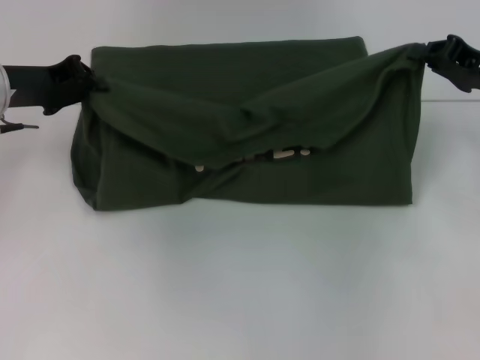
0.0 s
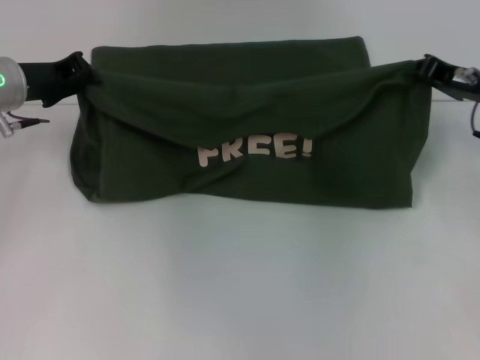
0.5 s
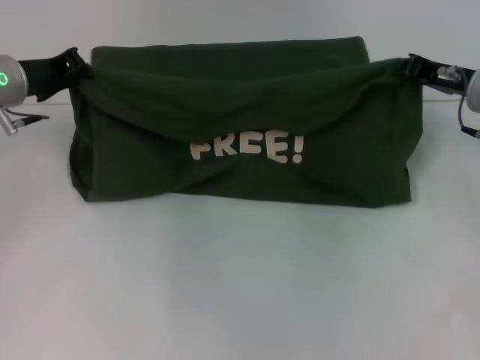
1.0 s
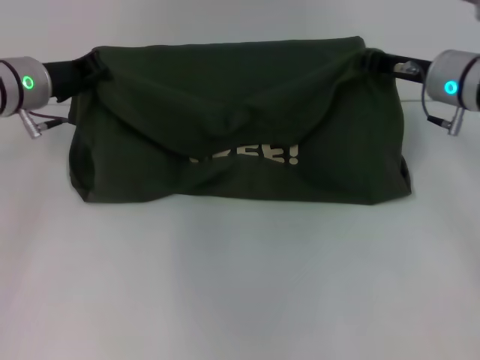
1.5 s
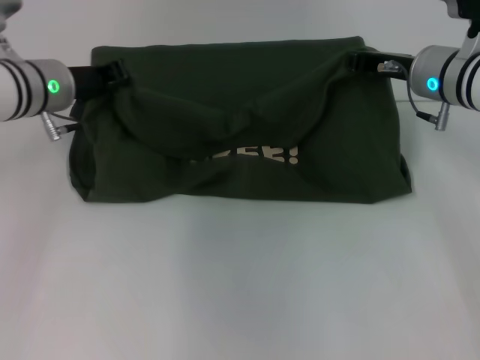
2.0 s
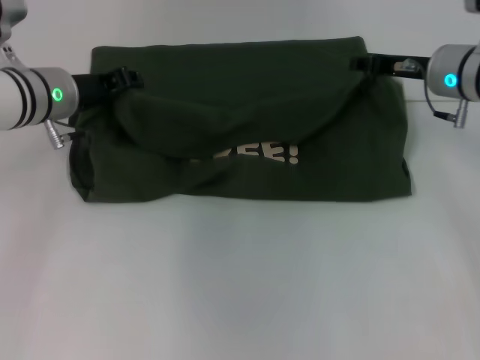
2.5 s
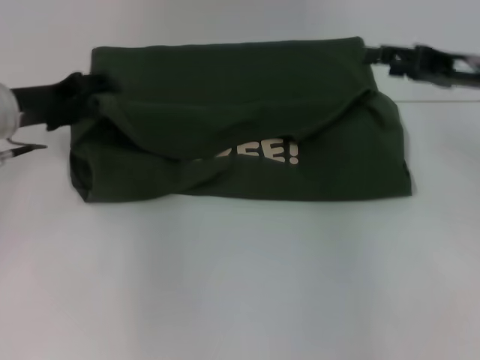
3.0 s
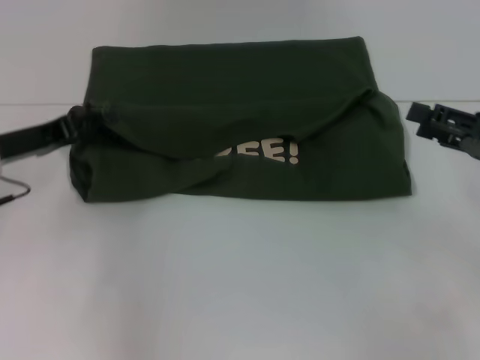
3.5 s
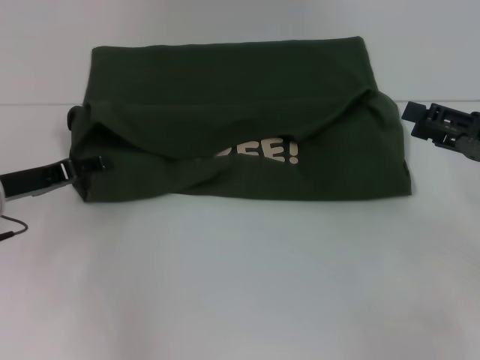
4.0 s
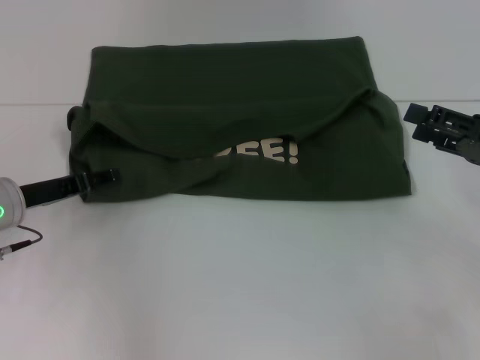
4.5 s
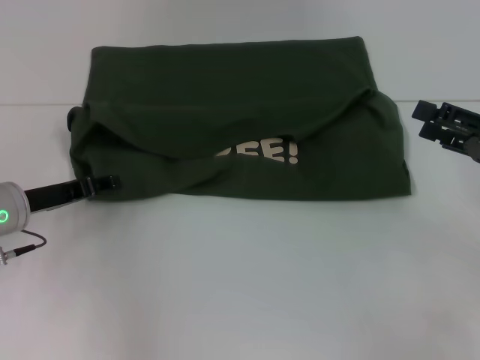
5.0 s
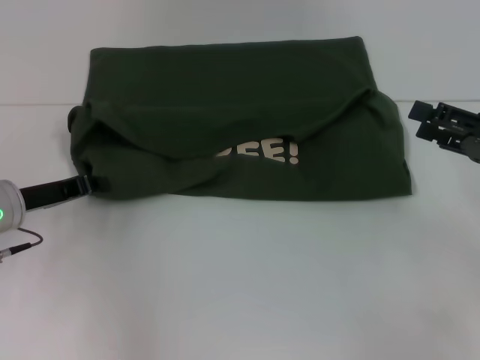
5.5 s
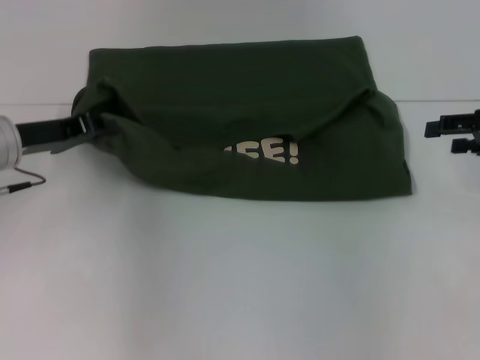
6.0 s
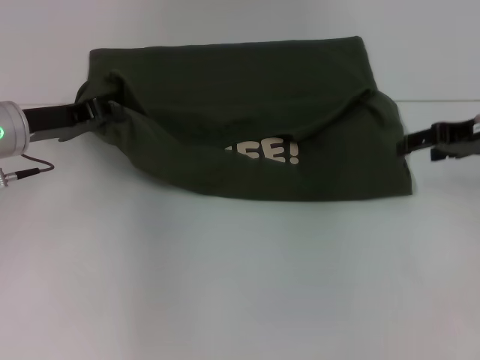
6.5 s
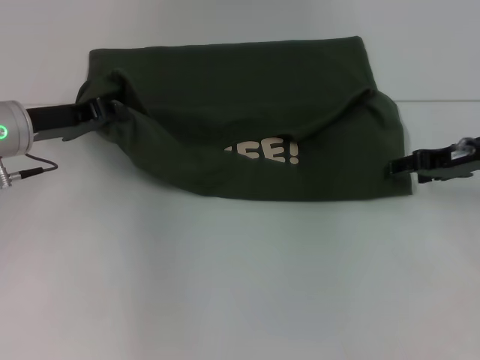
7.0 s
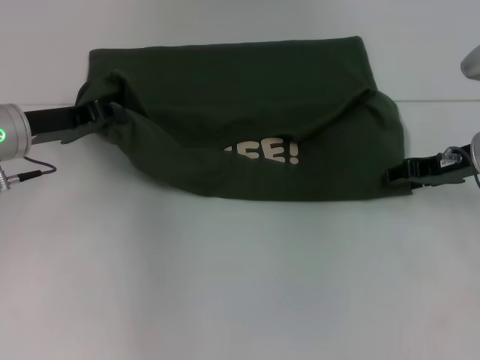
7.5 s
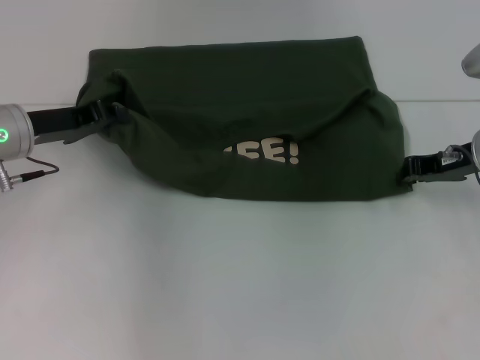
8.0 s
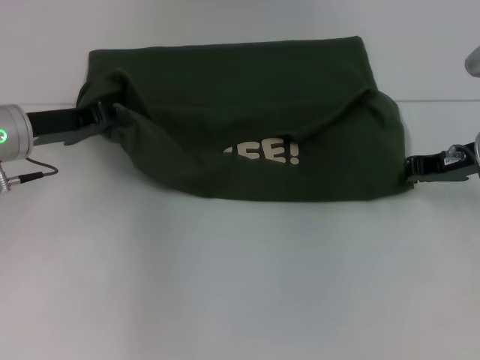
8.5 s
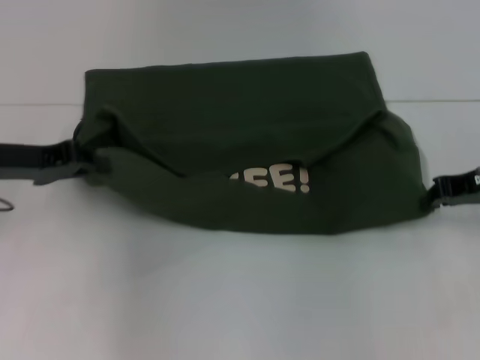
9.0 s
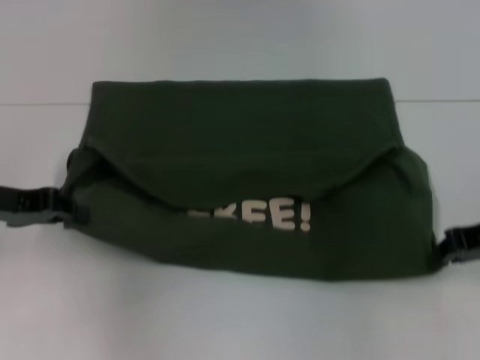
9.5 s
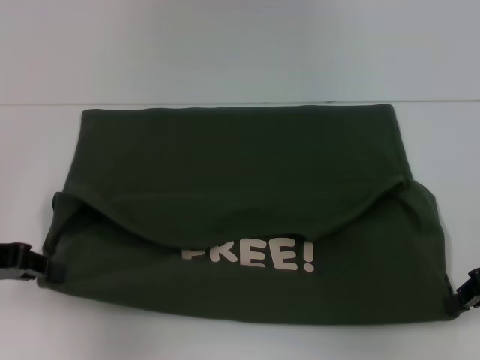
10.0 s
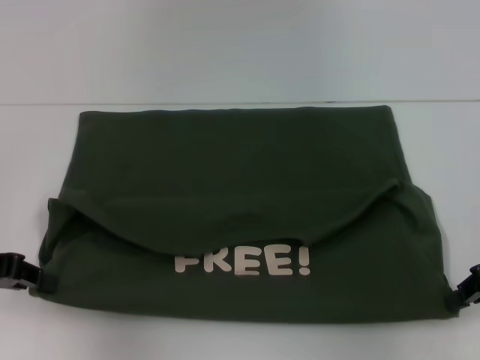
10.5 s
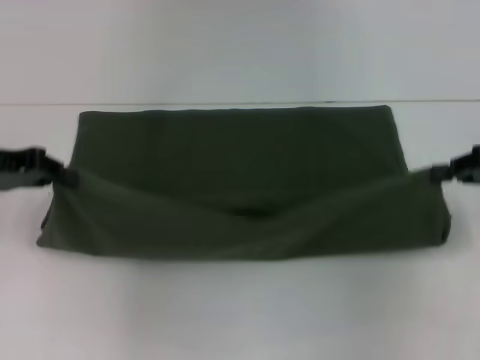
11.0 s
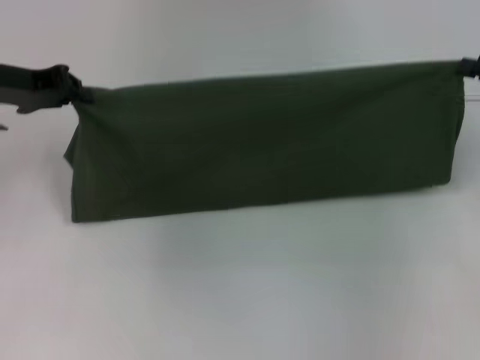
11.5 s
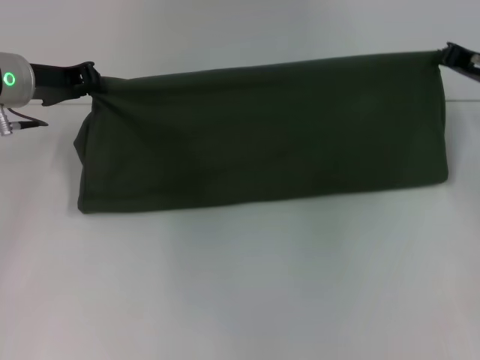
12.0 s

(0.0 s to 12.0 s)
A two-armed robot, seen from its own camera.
Step, 0.0 s - 3.0 s: Fold the clothes with your left hand.
Step, 0.0 s - 3.0 s: Fold the clothes with your right hand.
Step, 3.5 s - 10.0 s: Pull the clothes with your left hand.
Step, 3.5 s - 10.0 s: Pull the clothes with your right hand.
0.0 s - 2.0 s: The left gripper heads to the right, covering some 5 cm. Meanwhile the right gripper shifts about 10 cm to the left.
2.0 s - 4.0 s: The right gripper travels backward and to the right by roughly 20 cm, and opens. The left gripper travels backward, to the left and downward by about 15 cm, and opens up.
4.0 s - 6.0 s: The left gripper shifts by approximately 5 cm, and closes up. The right gripper shifts some 5 cm forward.
6.0 s - 8.0 s: The right gripper heads to the left, covering about 10 cm, and closes its fingers.
8.0 s - 10.0 s: The right gripper is displaced backward and to the right by about 10 cm; the left gripper heads backward and to the left, covering roughly 10 cm.
10.0 s - 12.0 s: The right gripper goes roughly 15 cm forward, while the left gripper travels forward and to the right by about 15 cm.

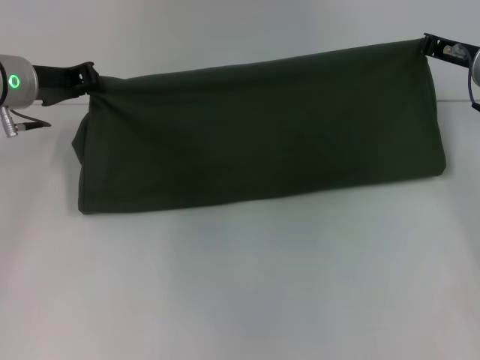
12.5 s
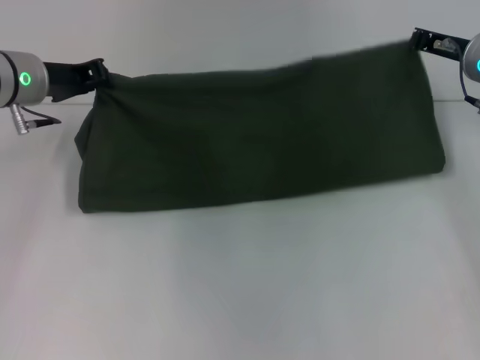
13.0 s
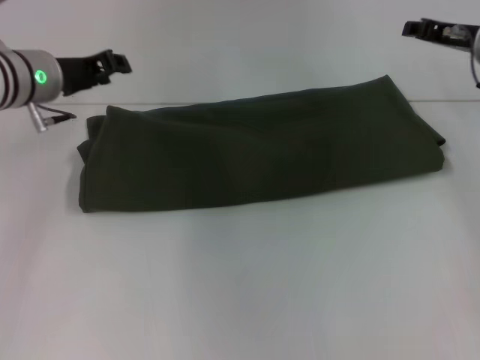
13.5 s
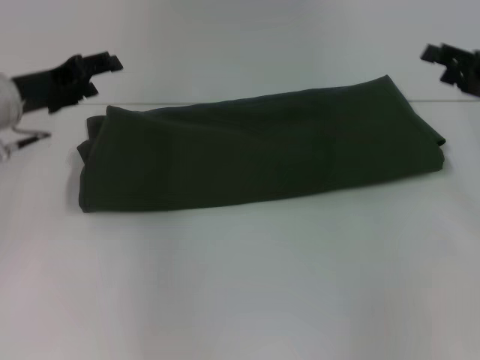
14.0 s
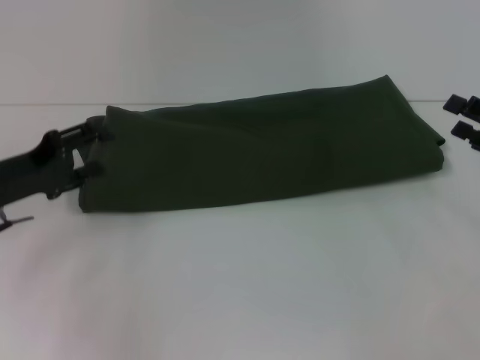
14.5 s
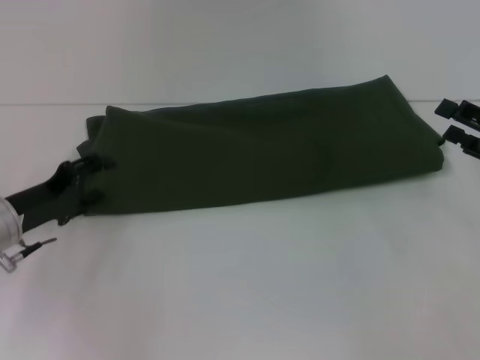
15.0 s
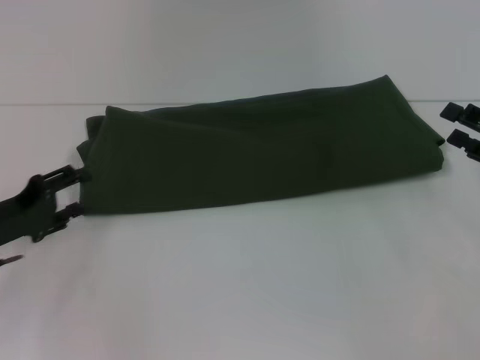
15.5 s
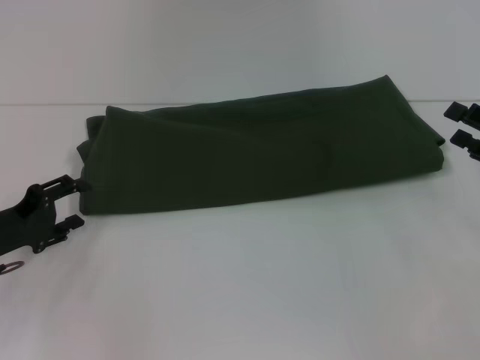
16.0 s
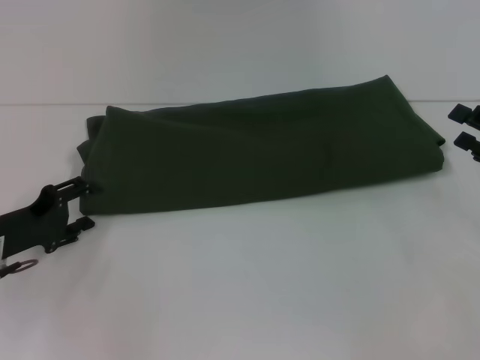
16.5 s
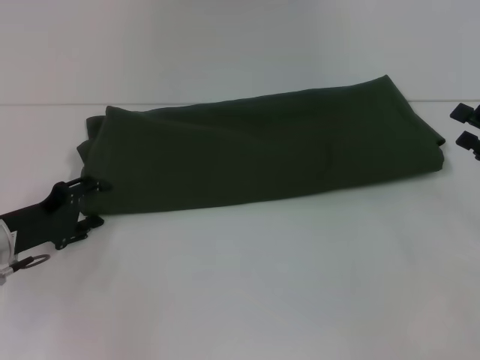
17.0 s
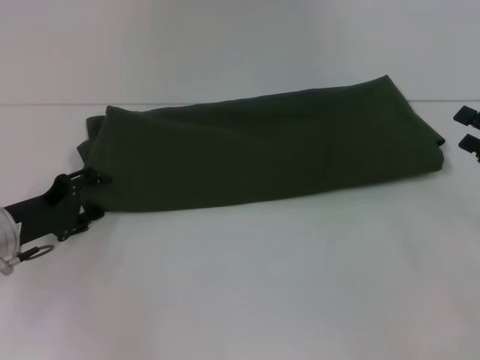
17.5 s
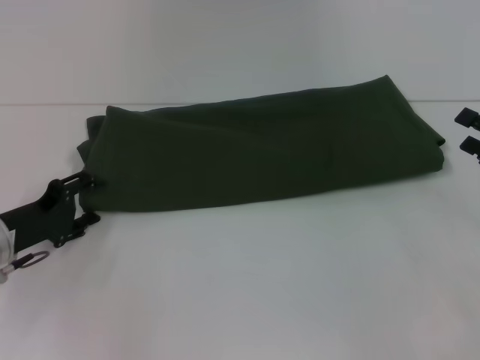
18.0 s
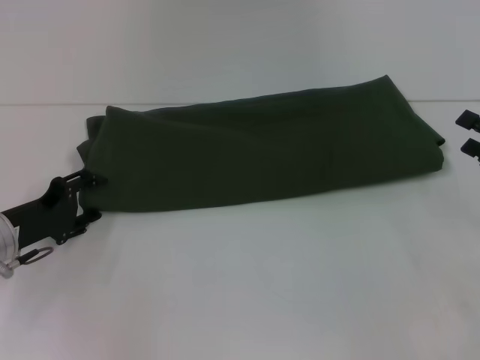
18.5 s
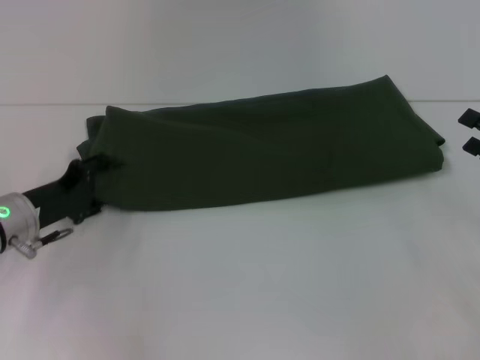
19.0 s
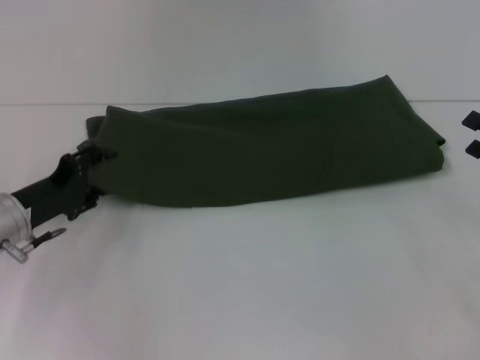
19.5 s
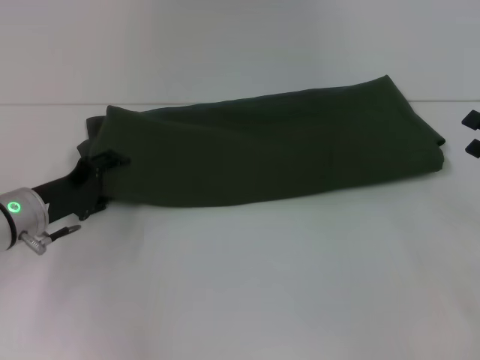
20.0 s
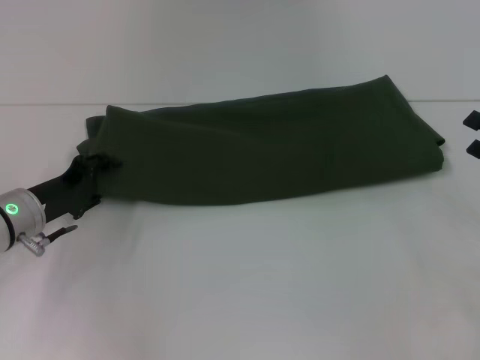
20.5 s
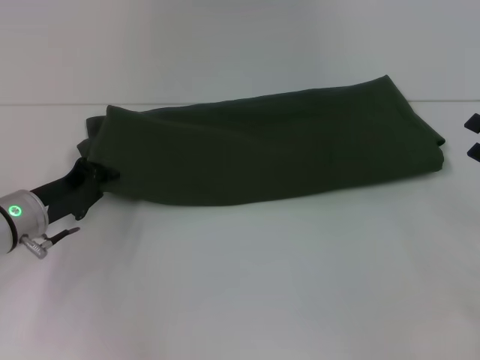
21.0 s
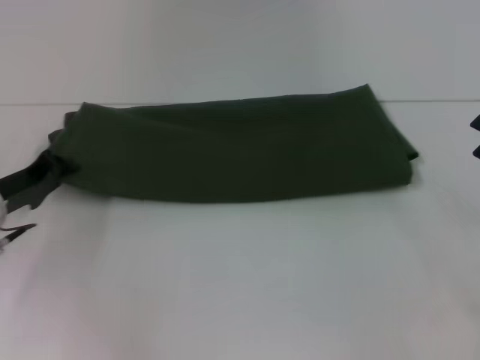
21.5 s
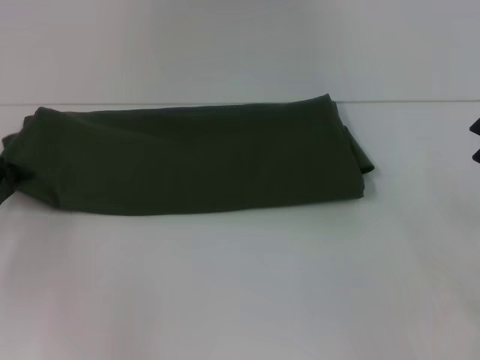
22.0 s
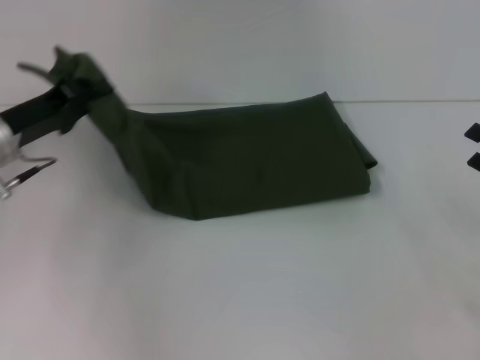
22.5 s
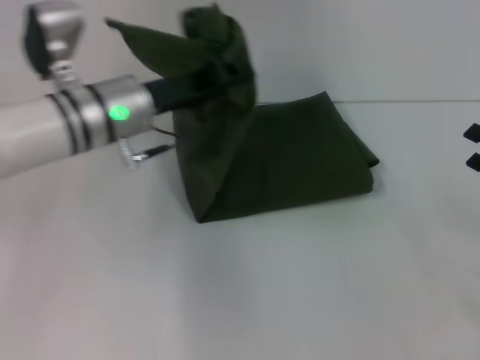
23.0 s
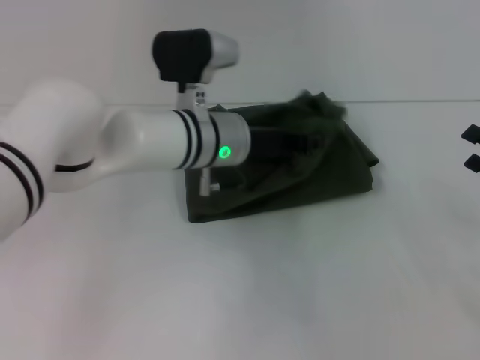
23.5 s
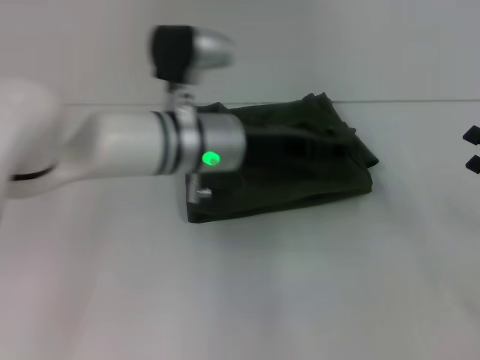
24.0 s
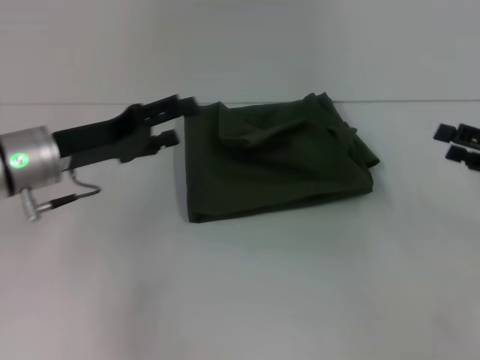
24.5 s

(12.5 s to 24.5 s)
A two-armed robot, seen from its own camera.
Step, 12.5 s - 24.0 s: Fold the clothes with your left hand.
12.5 s - 14.5 s: The left gripper moves backward and downward, about 15 cm, and opens. Meanwhile the right gripper travels backward and to the right by approximately 15 cm, and opens up.
14.5 s - 16.5 s: The left gripper goes about 5 cm downward.
16.5 s - 20.5 s: The grippers move only a little.
20.5 s - 22.5 s: The left gripper travels upward by about 10 cm, moves approximately 10 cm to the left and comes back, and closes up.
22.5 s - 24.5 s: The left gripper goes to the right and returns, roughly 25 cm each way, and opens up.

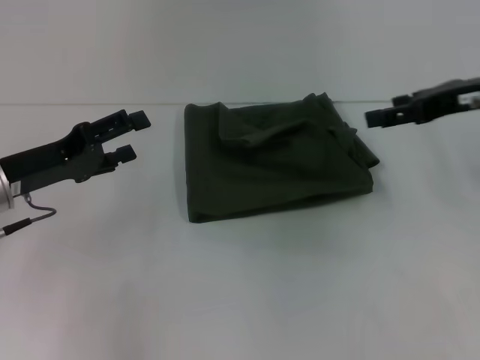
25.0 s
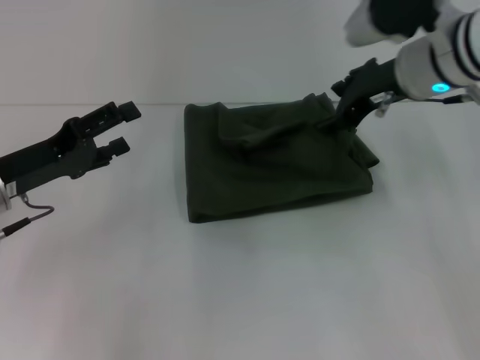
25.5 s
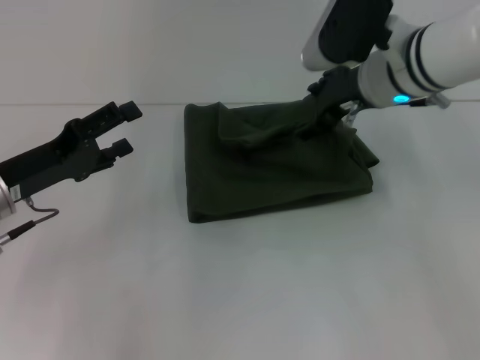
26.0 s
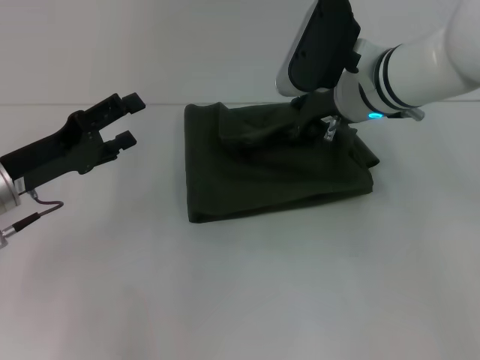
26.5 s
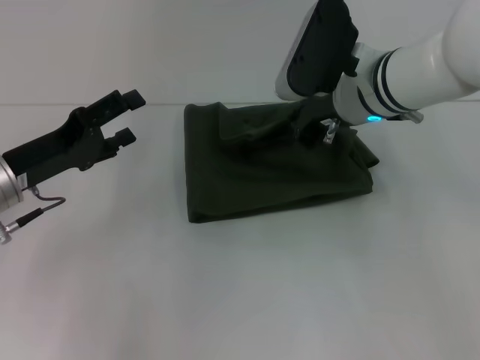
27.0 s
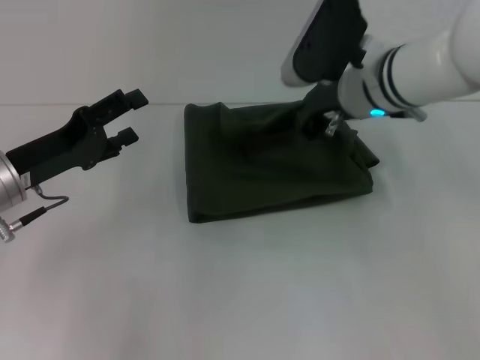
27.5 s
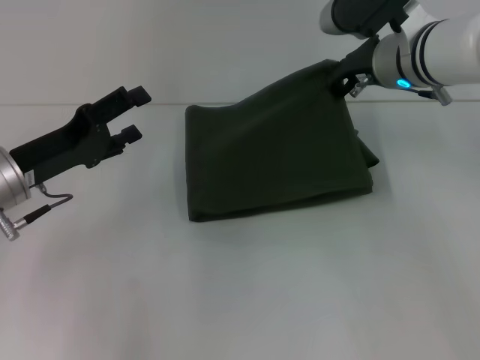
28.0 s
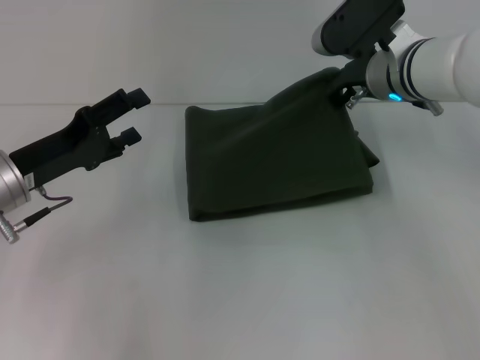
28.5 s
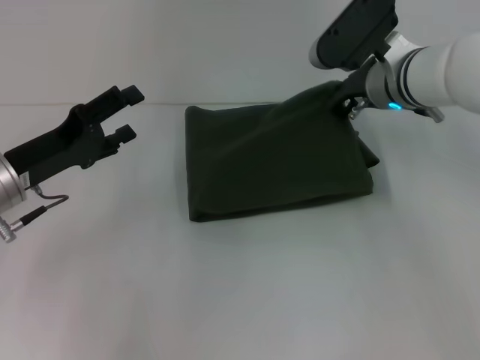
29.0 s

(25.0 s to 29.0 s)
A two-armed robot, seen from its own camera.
25.0 s - 27.0 s: The right gripper shifts roughly 15 cm to the left, and closes.
